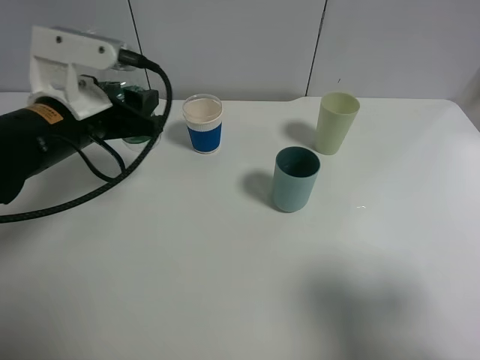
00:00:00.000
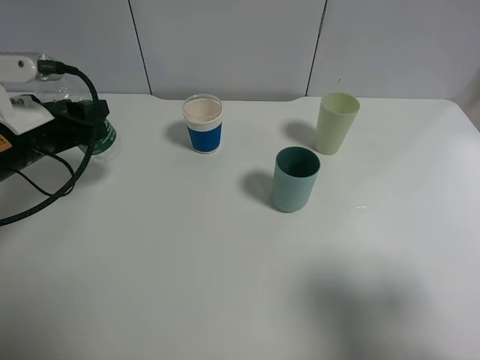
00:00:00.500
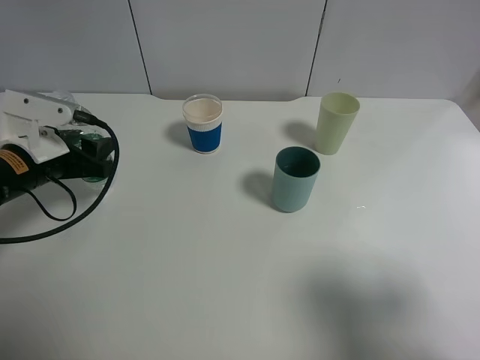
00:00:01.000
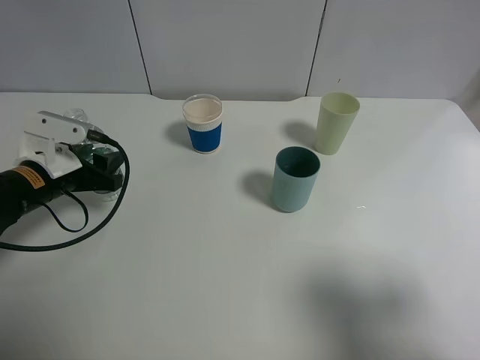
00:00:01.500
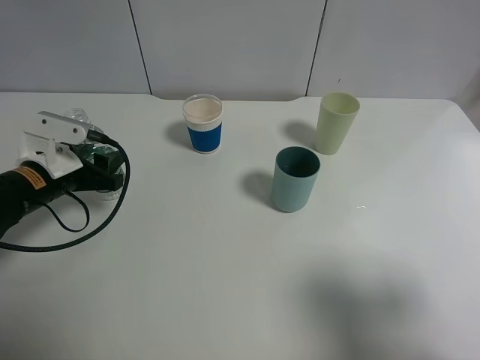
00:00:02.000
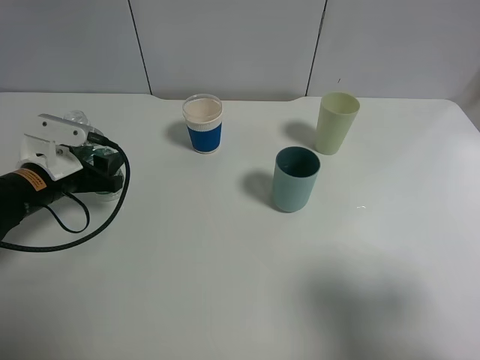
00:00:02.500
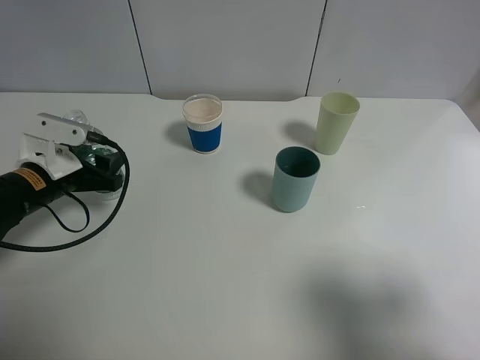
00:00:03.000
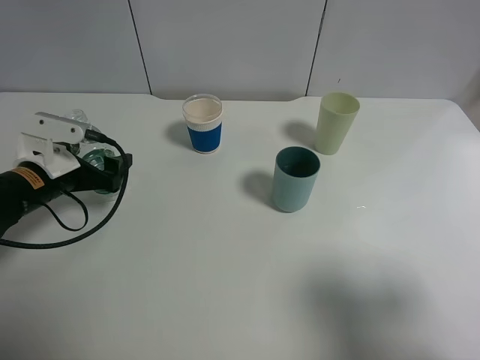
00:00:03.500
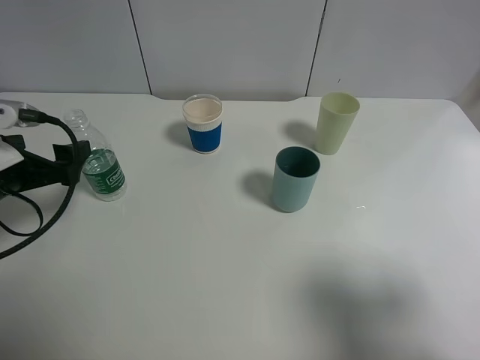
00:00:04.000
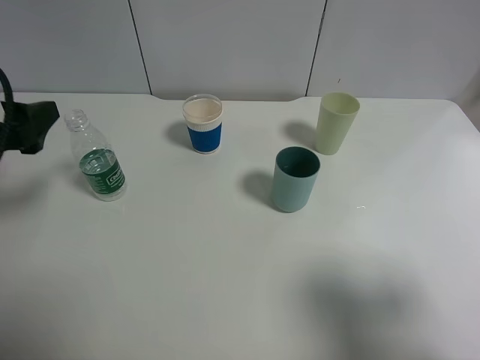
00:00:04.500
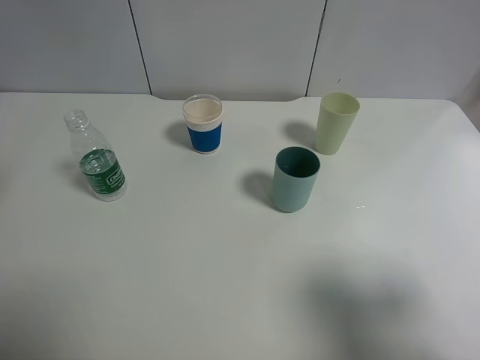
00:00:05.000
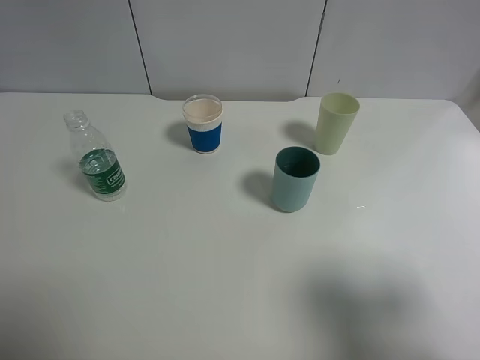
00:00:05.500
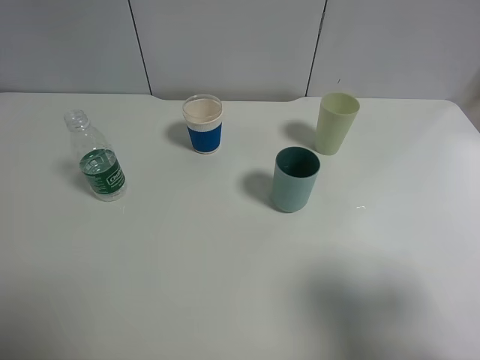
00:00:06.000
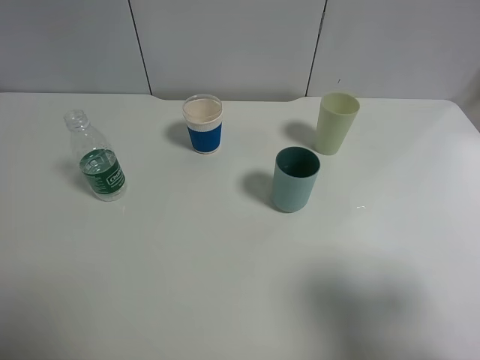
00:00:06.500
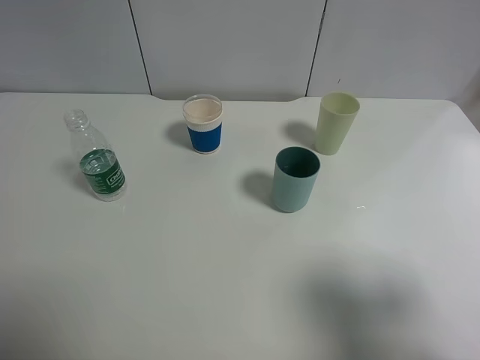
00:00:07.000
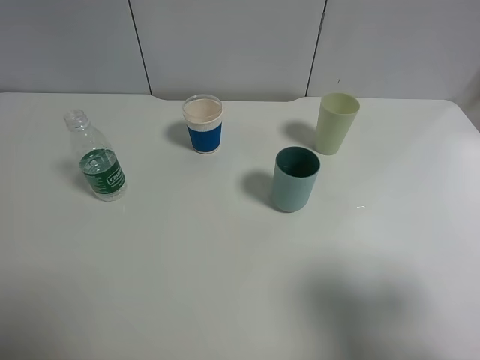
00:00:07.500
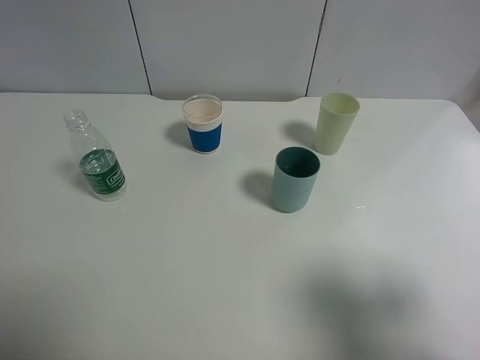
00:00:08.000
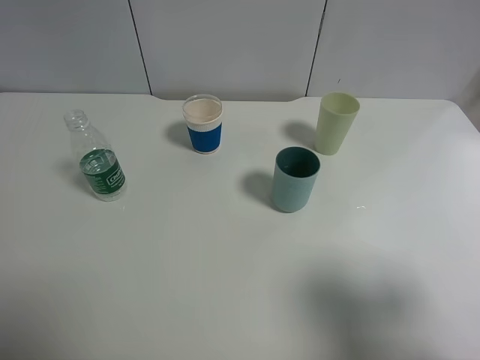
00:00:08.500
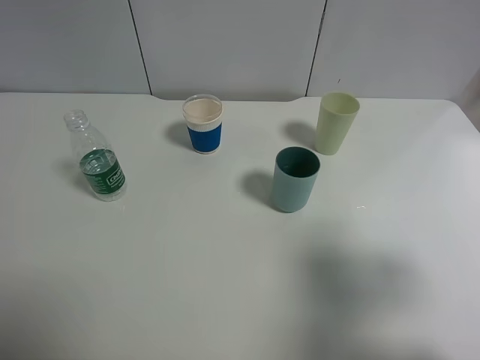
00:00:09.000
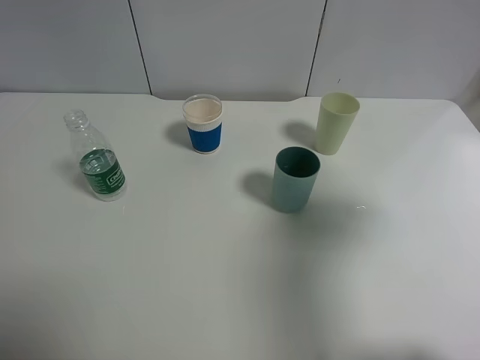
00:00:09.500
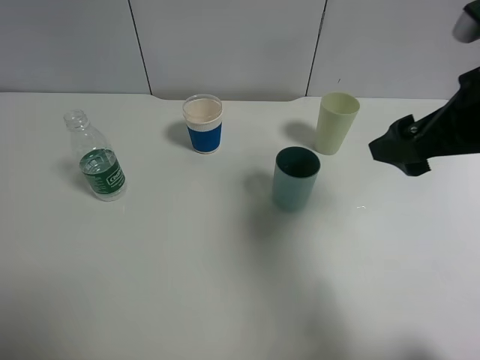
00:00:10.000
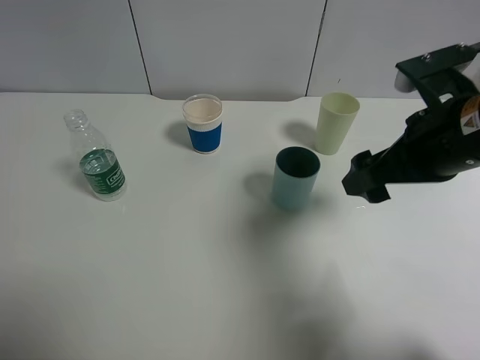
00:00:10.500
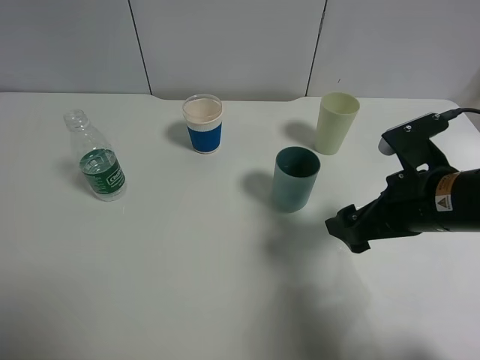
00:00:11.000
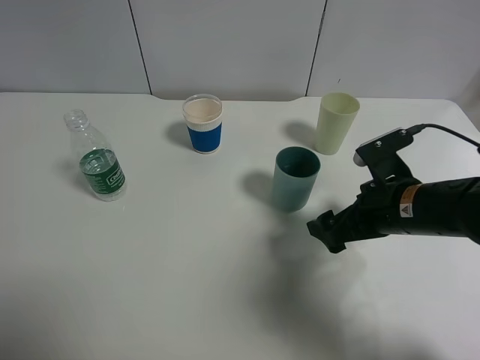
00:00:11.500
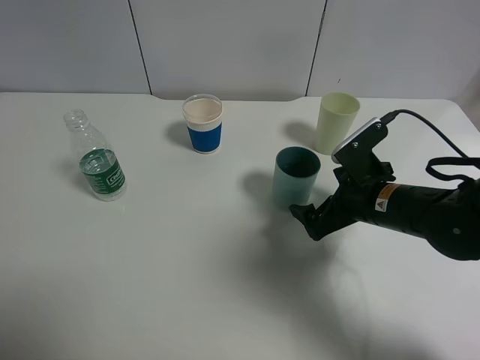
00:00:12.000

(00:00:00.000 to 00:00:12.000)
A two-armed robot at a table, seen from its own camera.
Task of the whole recording: use a clamp to hold the bottle of the drink, pour the beverage into a random cup, then clamp the cup containing the drink and pour the drink into another random cup.
Step, 00:00:00.000 - 00:00:03.500: Place the water bottle on the table with left gripper.
00:00:00.000 - 00:00:02.000: The left gripper moves downward and to the left, approximately 15 cm.
00:00:02.000 - 00:00:04.000: The left gripper ends up some 5 cm from where it was, and opens.
00:00:04.000 - 00:00:06.000: The left gripper goes approximately 30 cm backward and upward.
00:00:08.000 - 00:00:10.000: The right gripper is displaced forward by approximately 20 cm.
00:00:10.000 - 00:00:12.000: The right gripper goes about 20 cm downward.

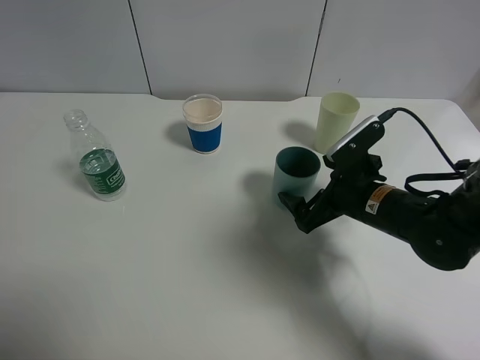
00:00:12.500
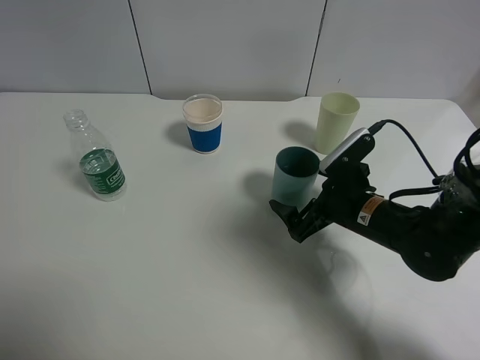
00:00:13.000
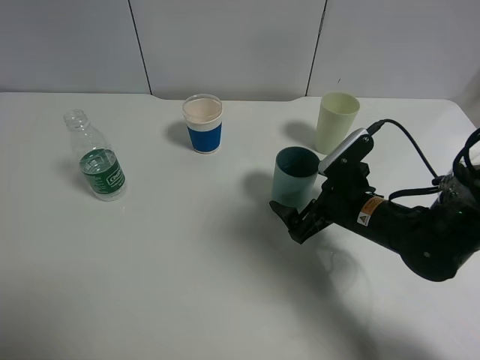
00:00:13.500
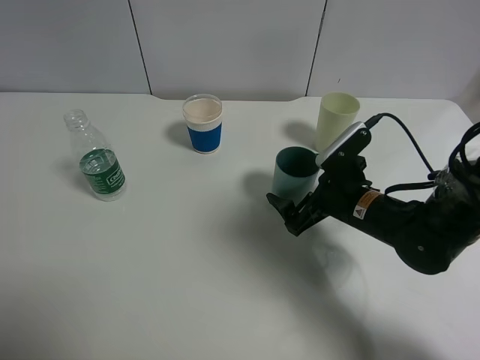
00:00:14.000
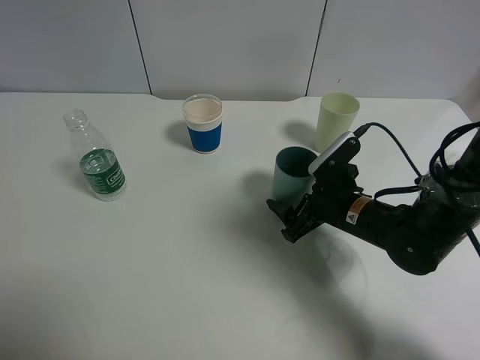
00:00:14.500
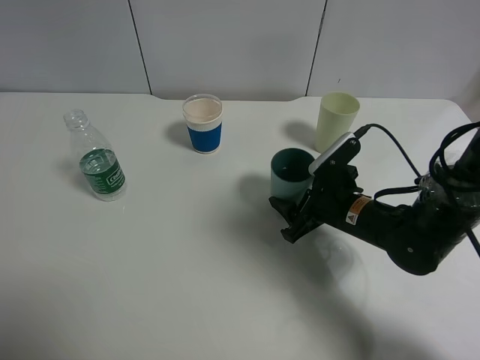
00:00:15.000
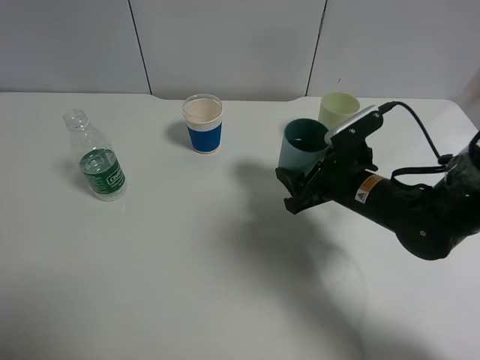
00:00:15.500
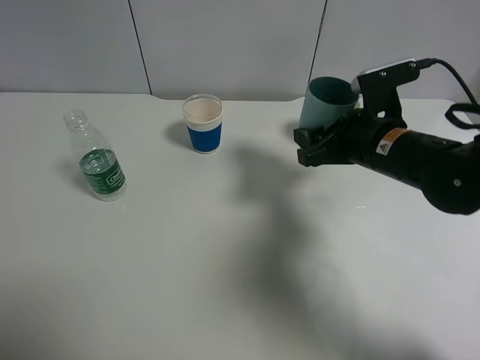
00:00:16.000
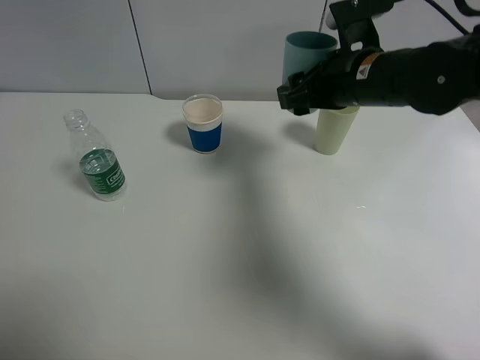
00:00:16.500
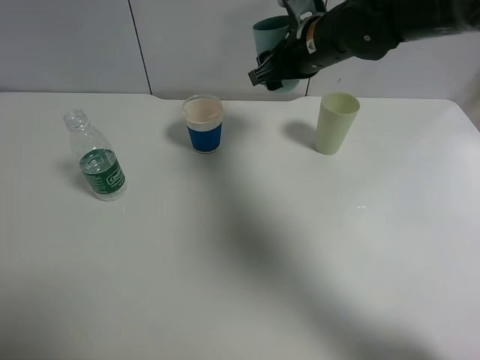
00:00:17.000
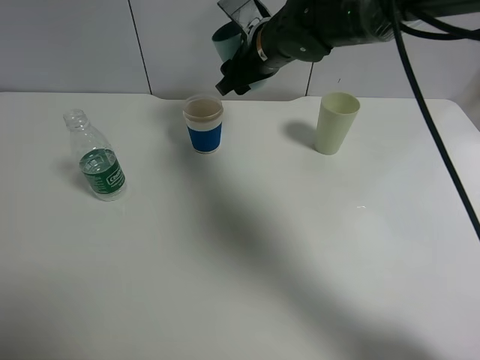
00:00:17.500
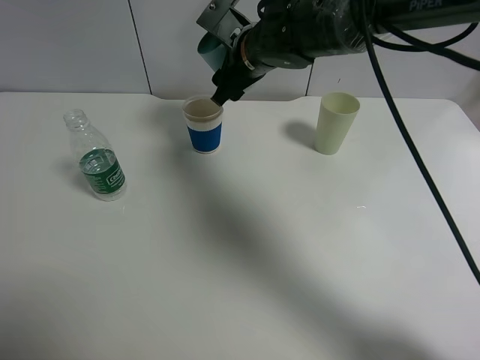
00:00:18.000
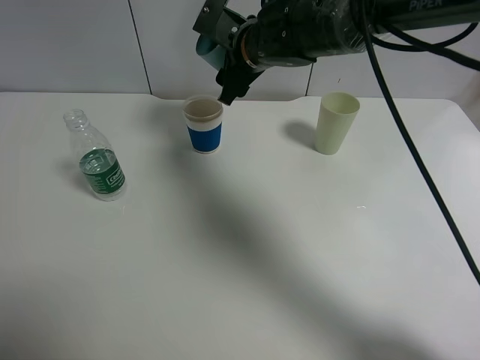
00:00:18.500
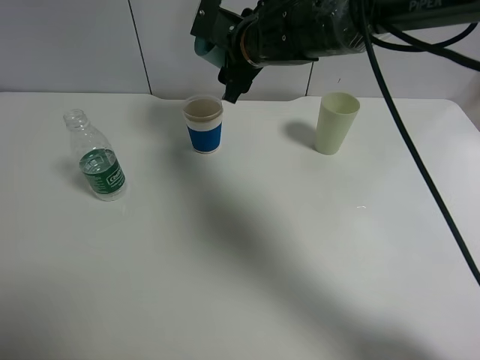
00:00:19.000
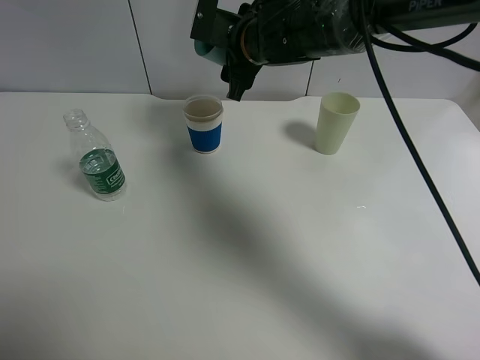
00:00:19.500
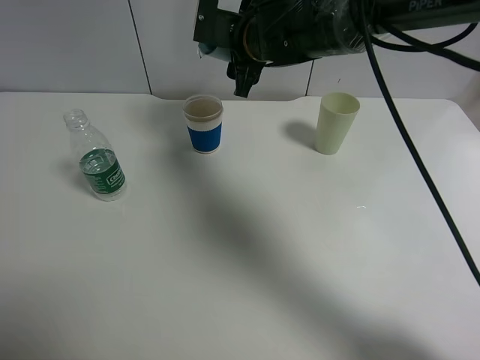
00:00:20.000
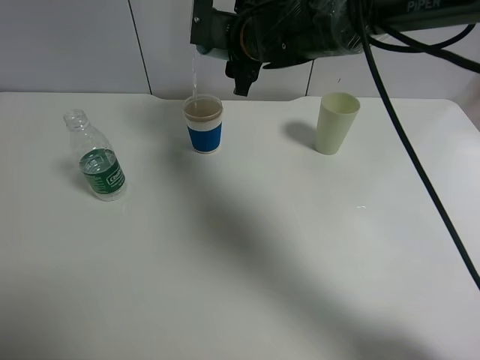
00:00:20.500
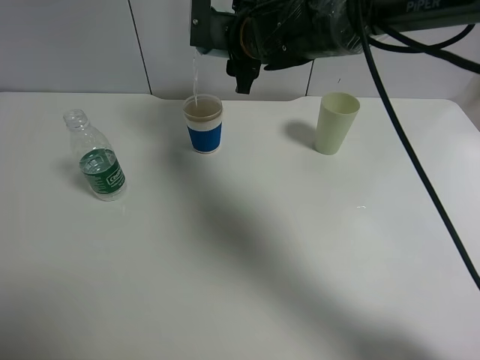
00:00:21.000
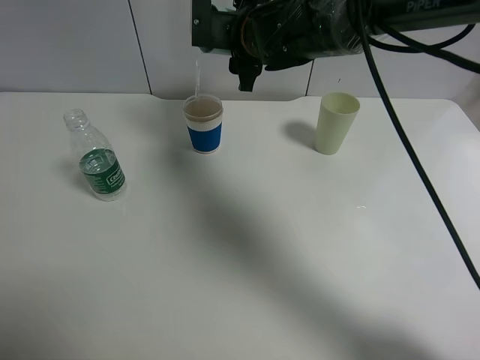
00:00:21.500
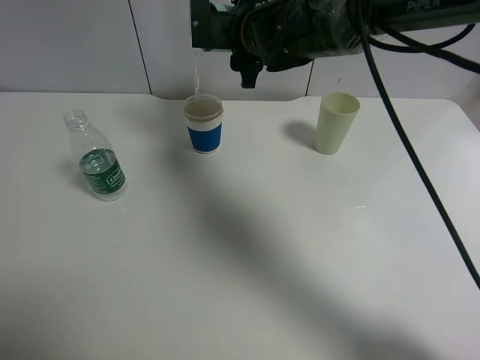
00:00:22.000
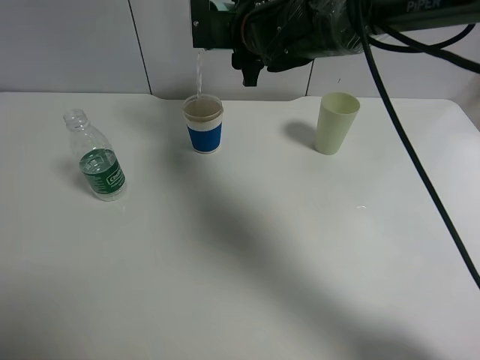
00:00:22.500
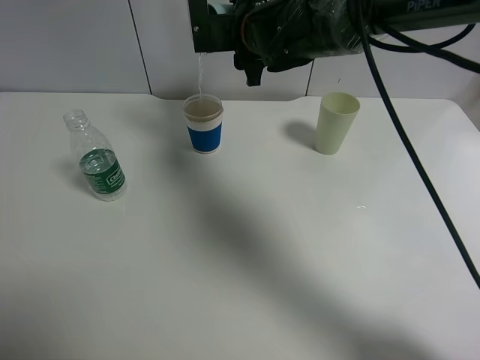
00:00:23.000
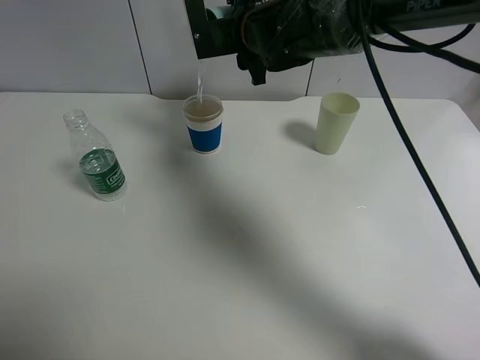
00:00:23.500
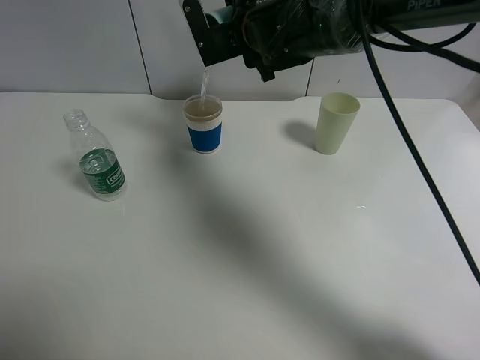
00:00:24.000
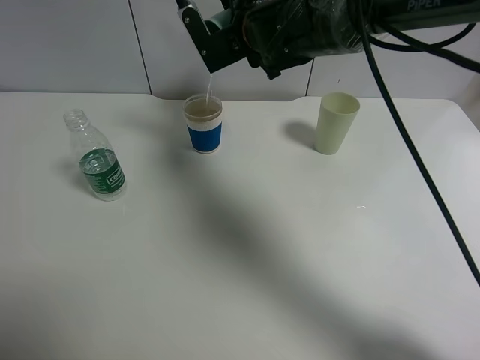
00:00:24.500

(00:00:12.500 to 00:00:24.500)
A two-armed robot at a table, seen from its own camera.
Task of the whole recording: use a clamp to hold the bottle of the drink, pour the beverage into a random cup, then clamp the cup containing the drink and pour the drink into another random cup.
Step, 00:00:12.500 - 00:00:15.000: Pick up the blue plastic cup bottle with right gripper.
00:00:12.500 - 00:00:14.500: The grippers make only small movements.
00:00:14.500 - 00:00:16.500: The right gripper goes approximately 15 cm upward, and closes up.
00:00:16.500 - 00:00:18.500: The right gripper is displaced to the left and forward by some 15 cm.
00:00:20.500 - 00:00:22.500: There are only small adjustments of the grippers.

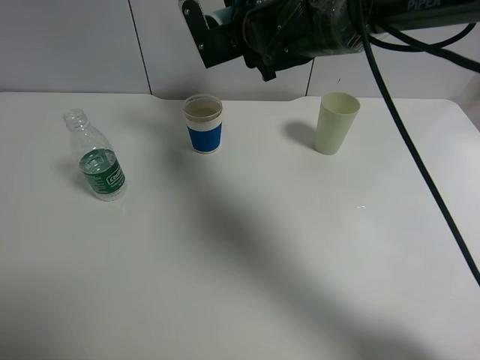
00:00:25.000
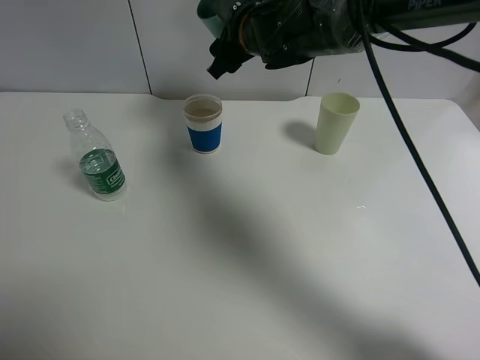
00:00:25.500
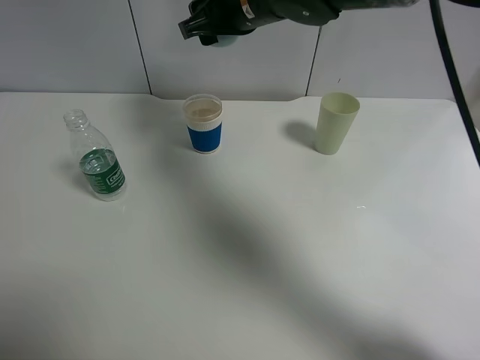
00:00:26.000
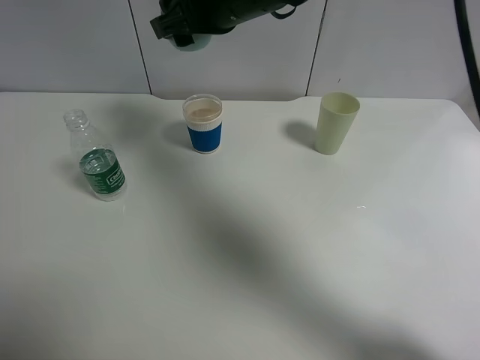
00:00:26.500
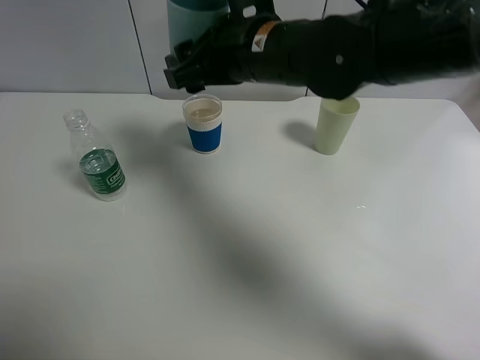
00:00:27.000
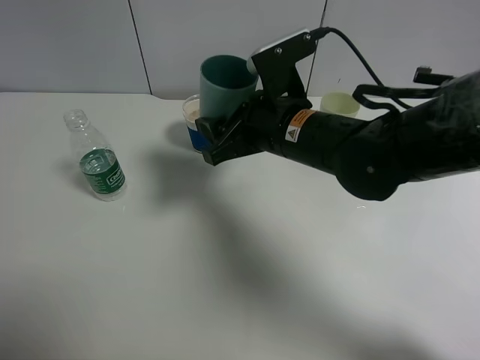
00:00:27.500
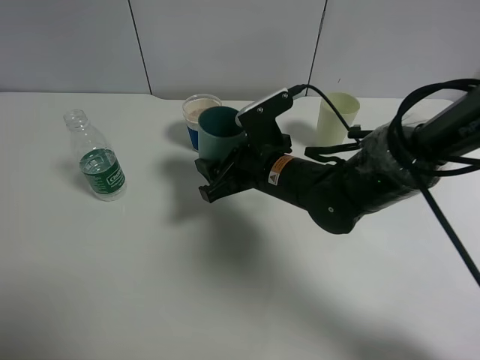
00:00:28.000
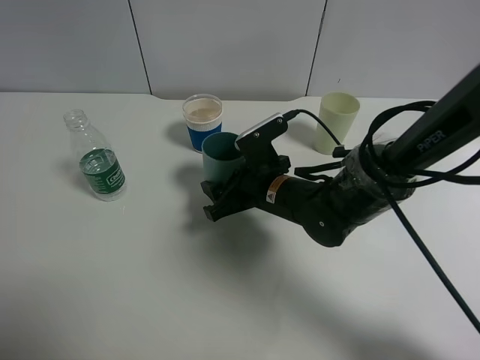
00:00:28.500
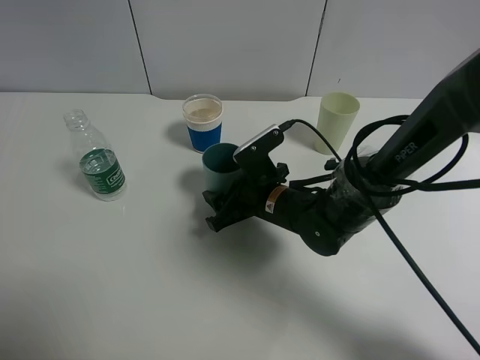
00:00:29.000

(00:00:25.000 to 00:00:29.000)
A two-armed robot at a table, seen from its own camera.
Task of the whole recording: use a clamp to hold the bottle of the drink, pour the beverage into a random cup, then clamp the cup containing the drink and pour the drink into another random cup.
00:00:25.000 - 00:00:27.000: The right gripper heads backward, covering some 10 cm.
00:00:27.000 - 00:00:29.000: The right gripper is displaced downward by some 20 cm.
